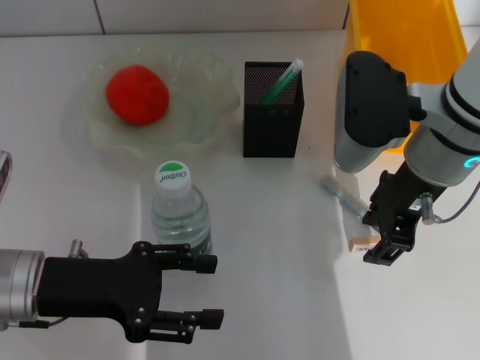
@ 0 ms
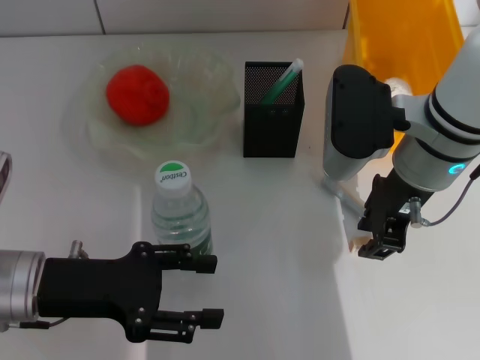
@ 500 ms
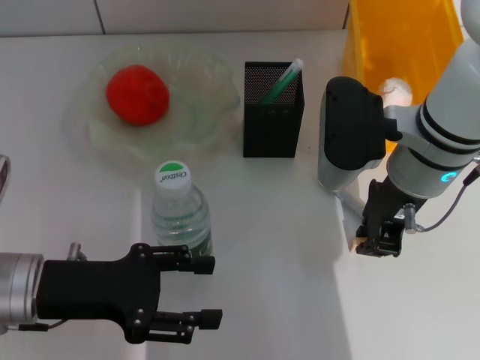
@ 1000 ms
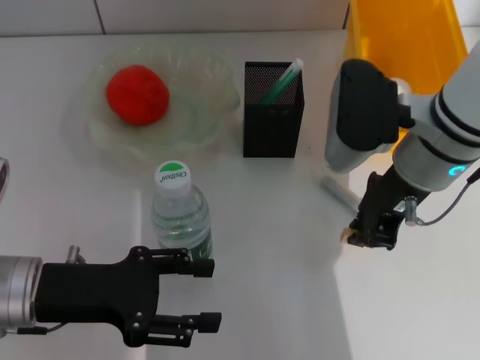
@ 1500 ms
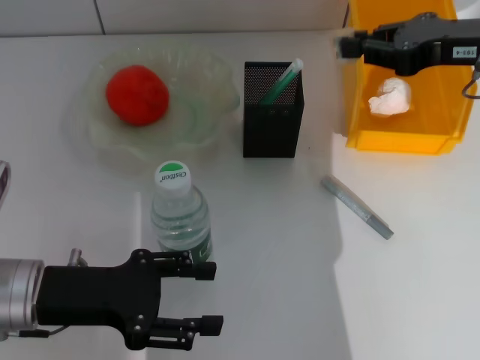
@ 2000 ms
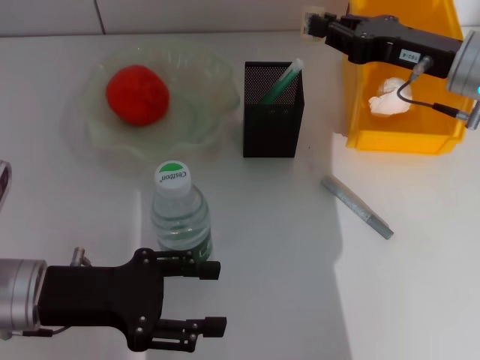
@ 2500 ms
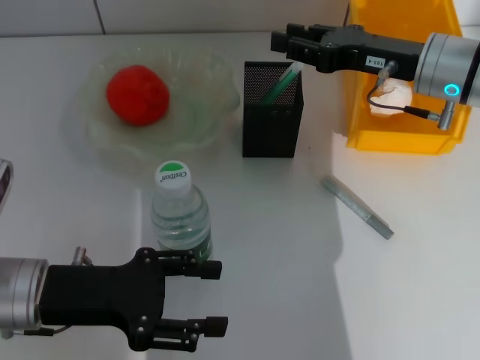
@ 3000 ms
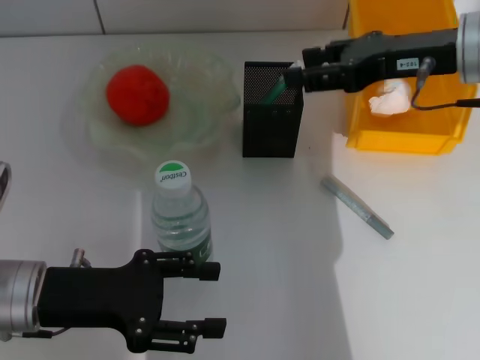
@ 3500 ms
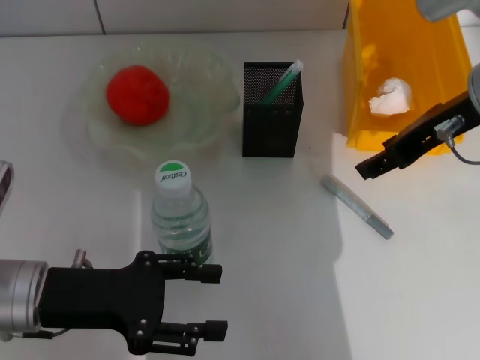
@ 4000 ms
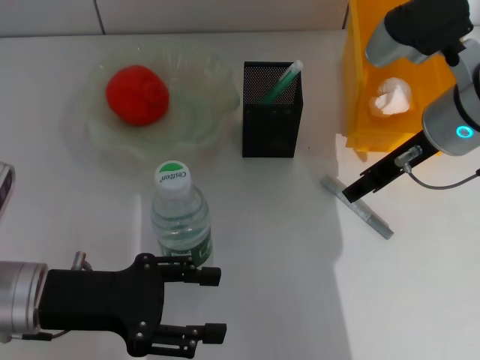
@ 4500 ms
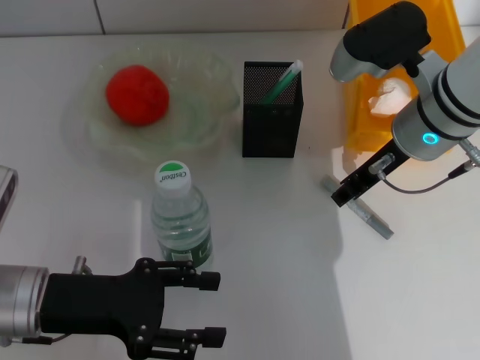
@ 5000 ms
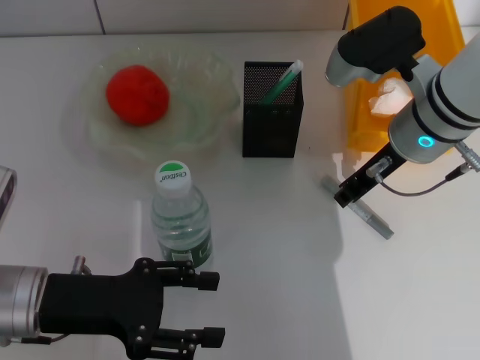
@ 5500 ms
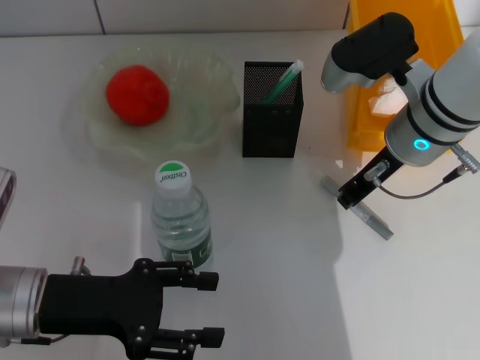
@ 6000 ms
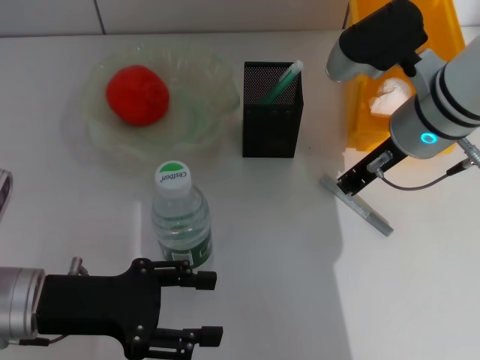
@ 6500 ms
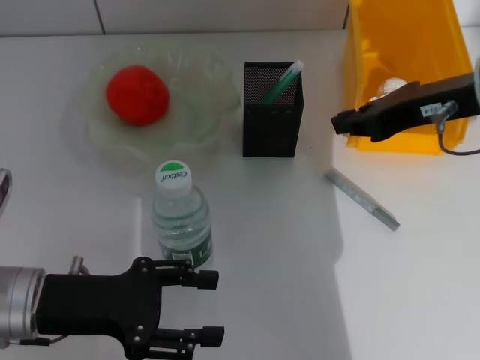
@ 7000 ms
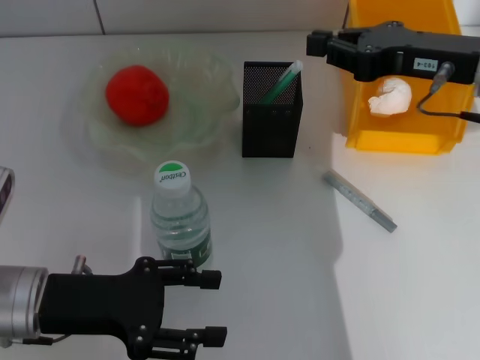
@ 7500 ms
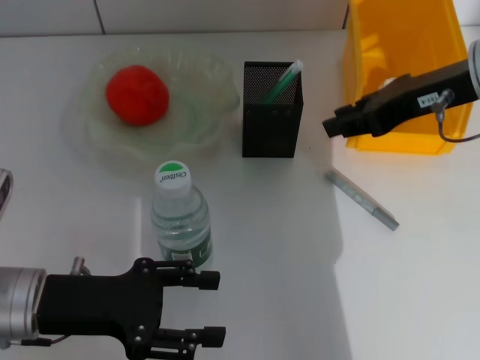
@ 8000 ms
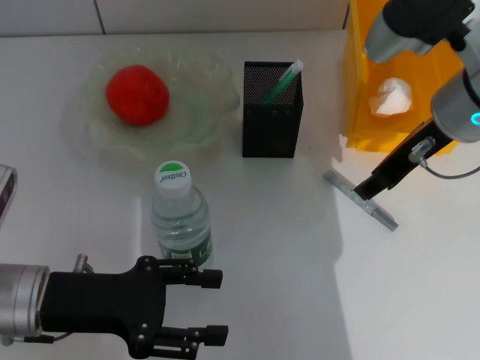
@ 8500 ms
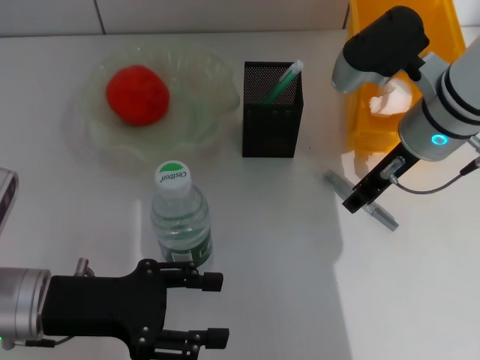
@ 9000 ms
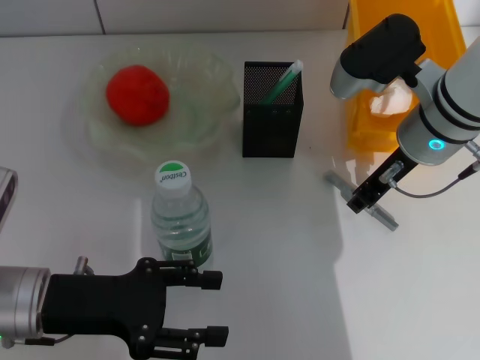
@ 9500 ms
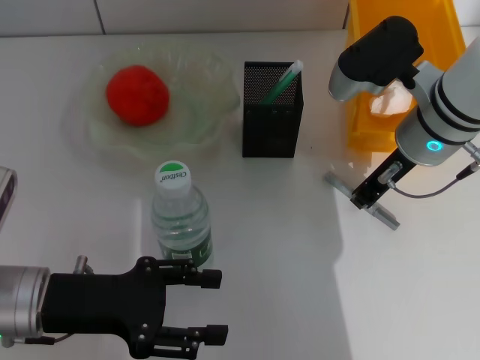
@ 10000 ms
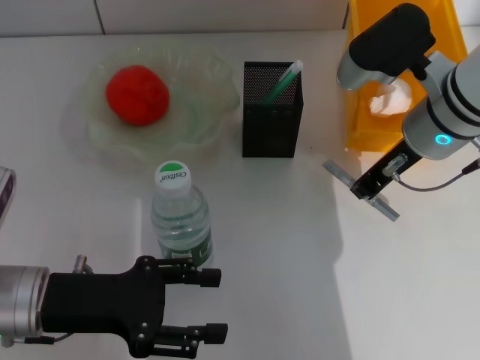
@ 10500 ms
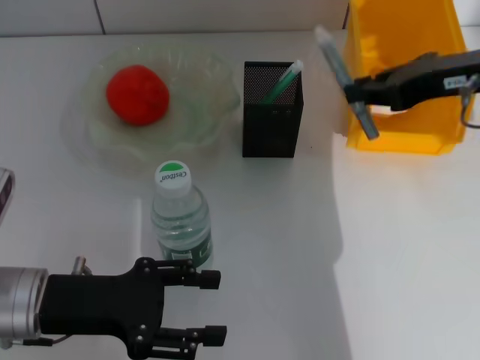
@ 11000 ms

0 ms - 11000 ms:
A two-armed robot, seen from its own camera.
Step, 1500 ms - 2500 ms: Put the eraser into the pen holder with the right hand.
Step, 3000 ms - 9500 ms: Grab the gray glue with the right hand.
0 ms - 2000 ms: The right gripper heads to the right, covering roughly 10 cm, and closes.
2000 ms - 3500 ms: The right gripper opens up.
3500 ms - 5500 ms: The right gripper travels to the left and downward by about 10 cm, and closes its fingers.
5500 ms - 7500 ms: The right gripper goes about 5 cm to the right, and closes its fingers.
7500 ms - 9000 ms: The right gripper heads to the left, covering roughly 5 cm, and opens up.
9000 ms - 11000 ms: The right gripper shifts approximately 10 cm to the right and upward, and closes its fingers.

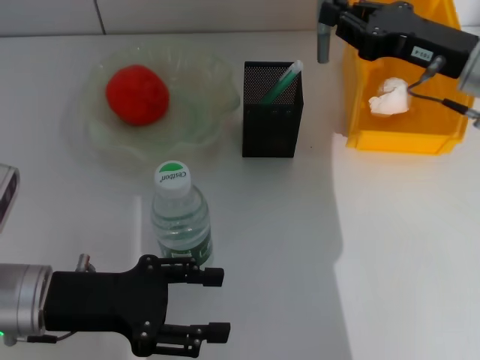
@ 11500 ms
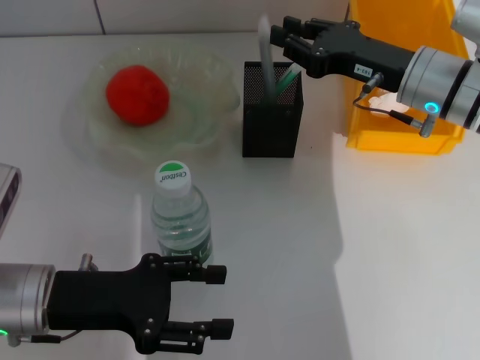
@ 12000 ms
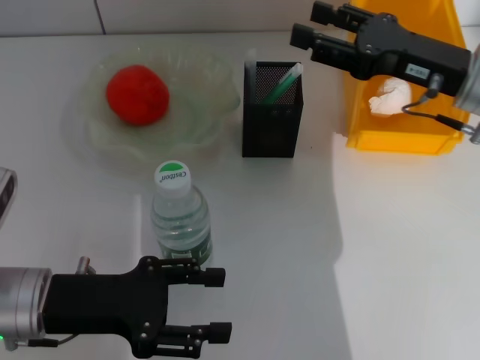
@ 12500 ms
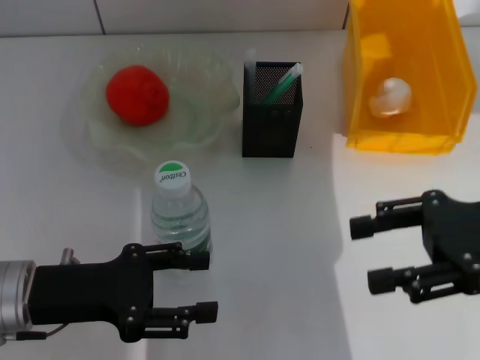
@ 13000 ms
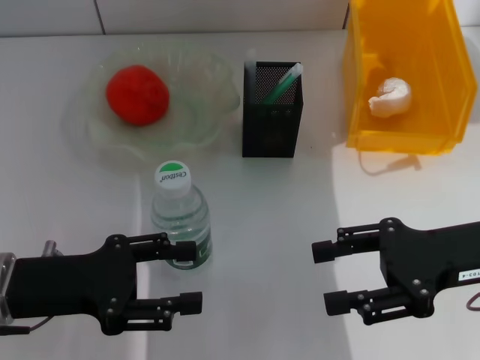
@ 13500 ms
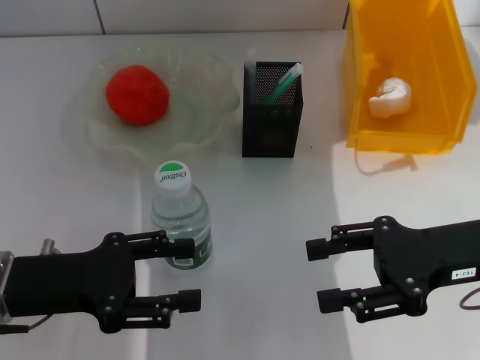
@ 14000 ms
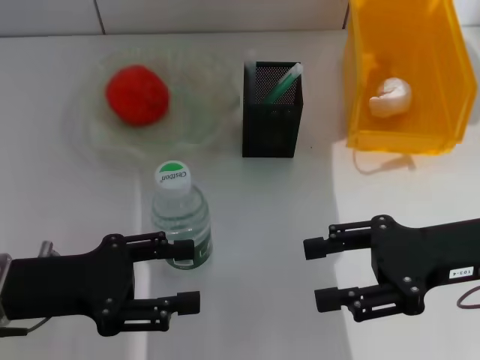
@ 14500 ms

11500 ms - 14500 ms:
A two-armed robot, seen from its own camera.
11500 ms - 13000 ms: The right gripper moves backward, roughly 10 cm, and opens its fingers.
13000 ms - 14500 ms: The right gripper changes place by some 5 cm.

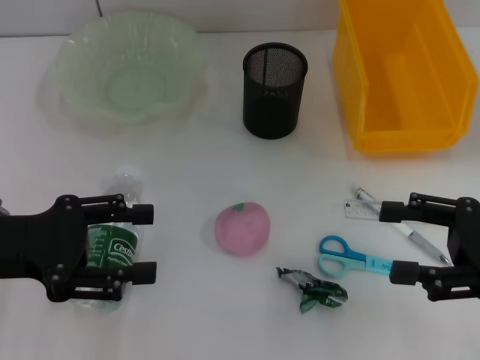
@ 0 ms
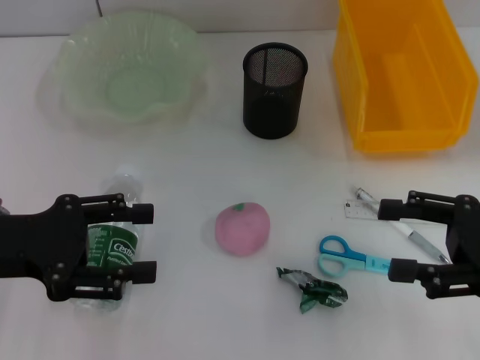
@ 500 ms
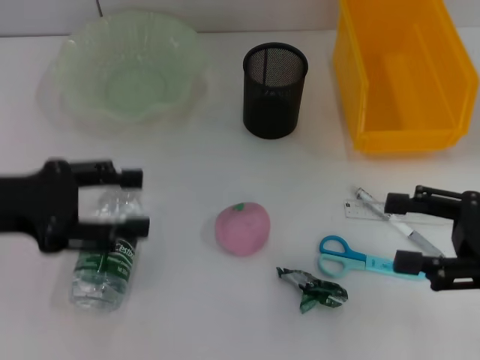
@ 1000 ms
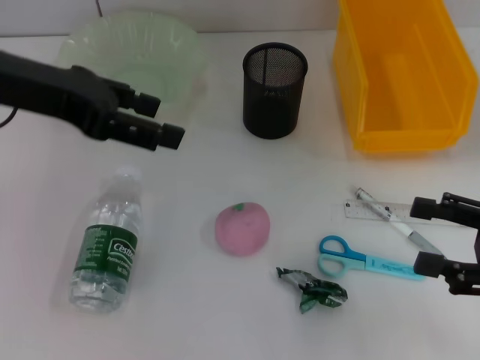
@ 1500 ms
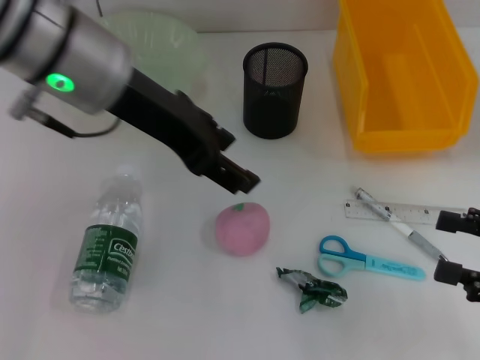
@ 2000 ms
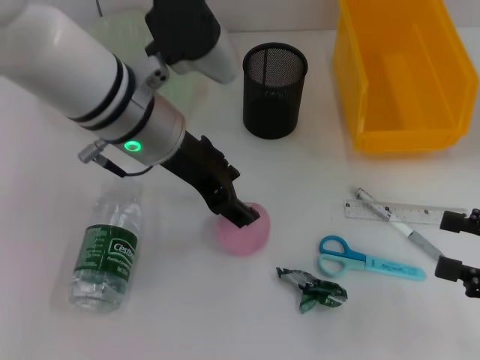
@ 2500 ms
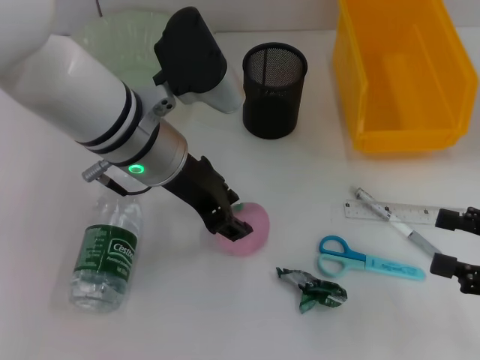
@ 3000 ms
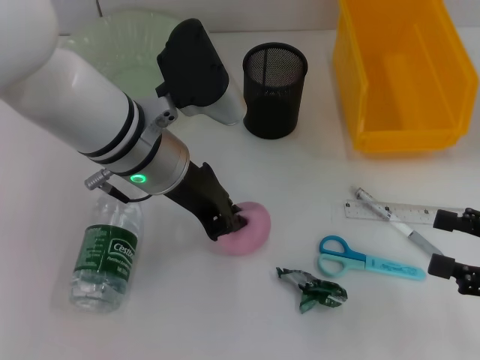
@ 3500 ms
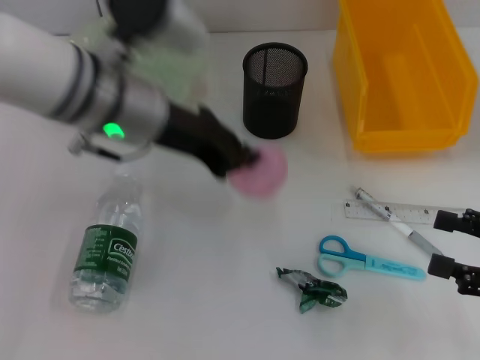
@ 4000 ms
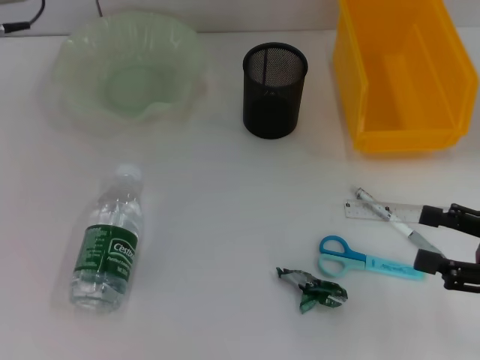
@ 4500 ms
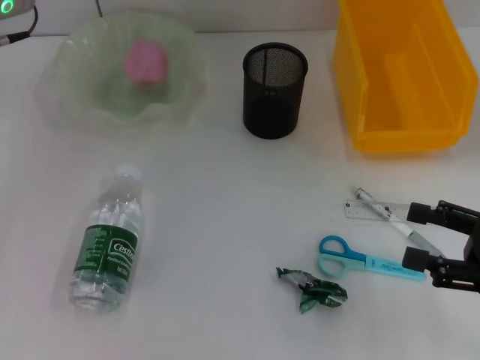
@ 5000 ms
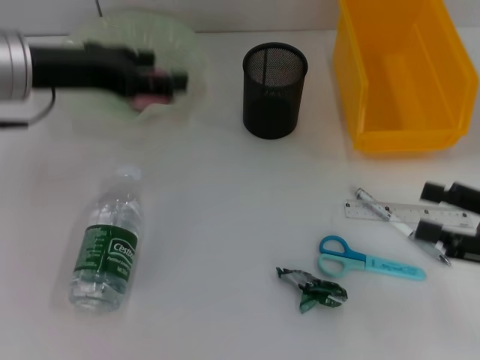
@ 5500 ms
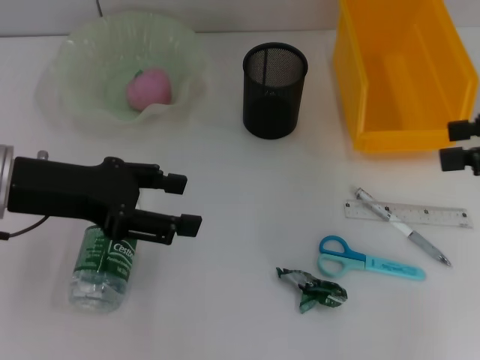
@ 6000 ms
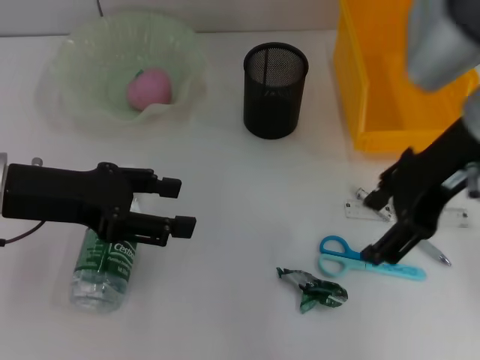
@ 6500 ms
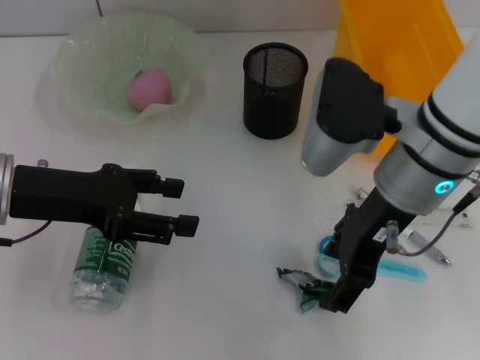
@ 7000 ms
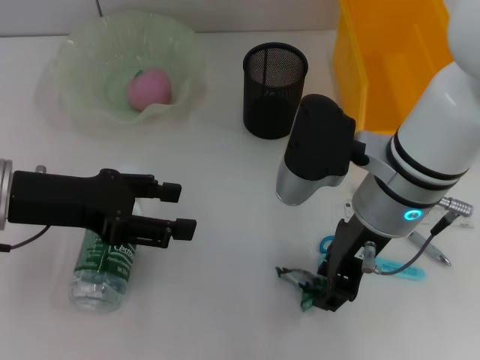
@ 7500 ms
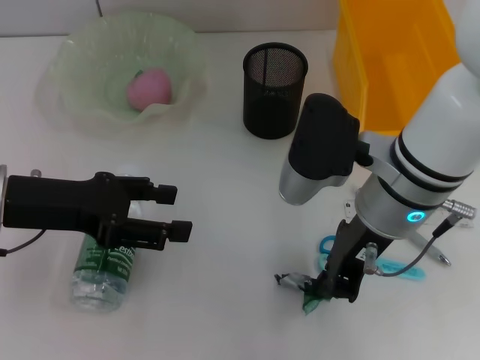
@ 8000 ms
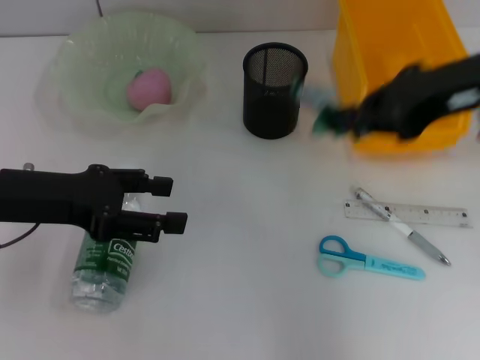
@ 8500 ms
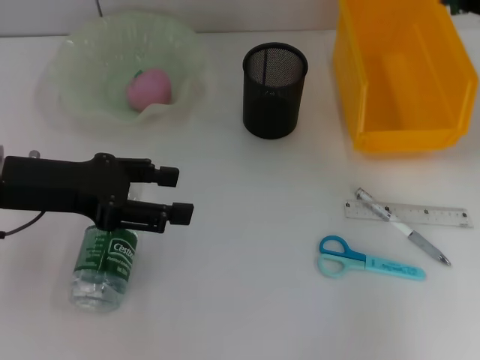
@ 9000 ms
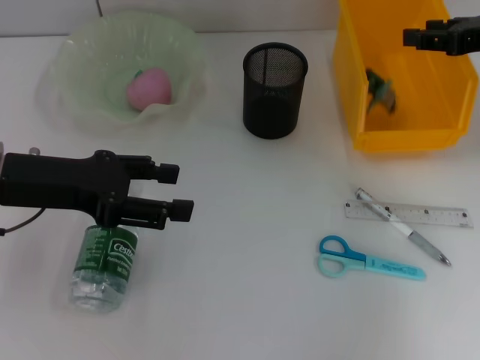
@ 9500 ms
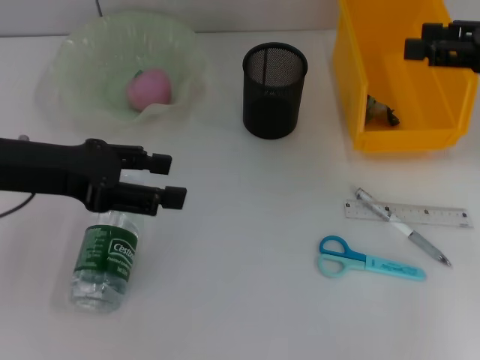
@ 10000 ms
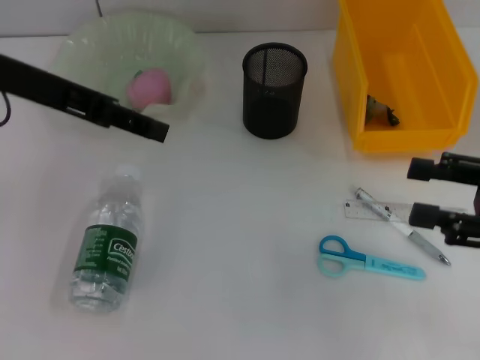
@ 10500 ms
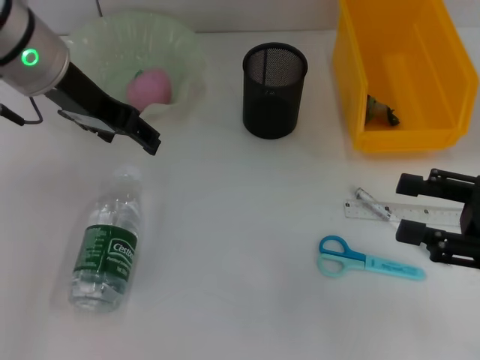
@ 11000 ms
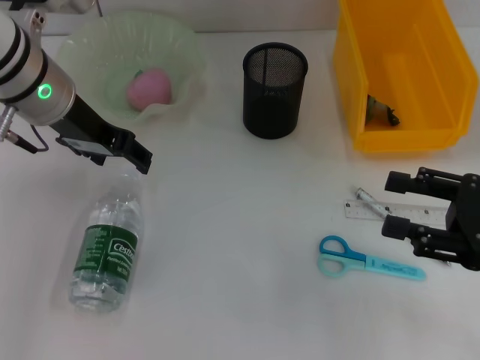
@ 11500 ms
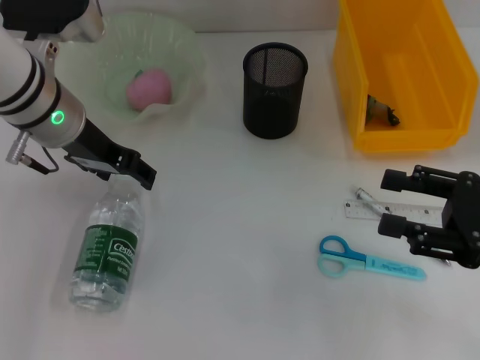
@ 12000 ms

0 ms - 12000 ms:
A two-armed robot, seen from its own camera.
Step, 0 ms - 3500 ms: Grab the peach with the left hand.
Step, 4000 ms - 5000 ms: Place the peach into the fruit bowl with the left hand.
Step, 5500 ms - 7500 ms: Grab the plastic with the right hand.
Step, 8000 ms - 9000 ms: Place the plastic into the trash can with the right hand.
0 ms - 2000 ms: The right gripper shifts by approximately 5 cm, while the left gripper shifts roughly 20 cm to the right, upward and forward.
2000 ms - 4000 ms: The left gripper is displaced downward by about 10 cm, and closes up.
4000 ms - 6000 ms: The left gripper moves to the left and backward, some 15 cm, and opens its fingers; the right gripper shifts about 15 cm upward and forward.
6000 ms - 8000 ms: The right gripper is displaced to the left by approximately 20 cm, and closes.
8000 ms - 10000 ms: The right gripper travels to the right by roughly 20 cm, and opens its fingers.
10000 ms - 12000 ms: The right gripper heads downward and backward, covering roughly 15 cm, while the left gripper goes some 10 cm forward and to the right, and goes upward and returns, approximately 5 cm each way.
